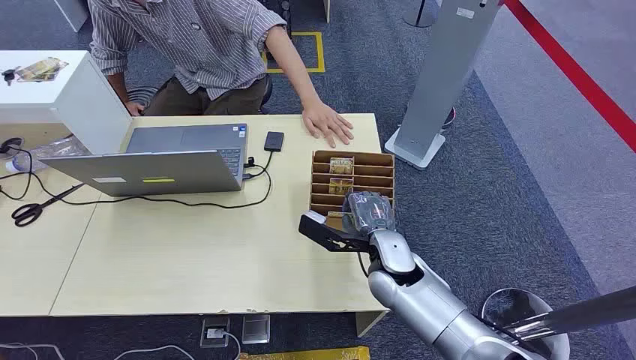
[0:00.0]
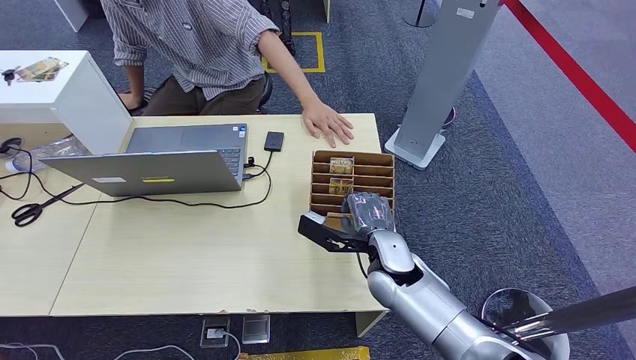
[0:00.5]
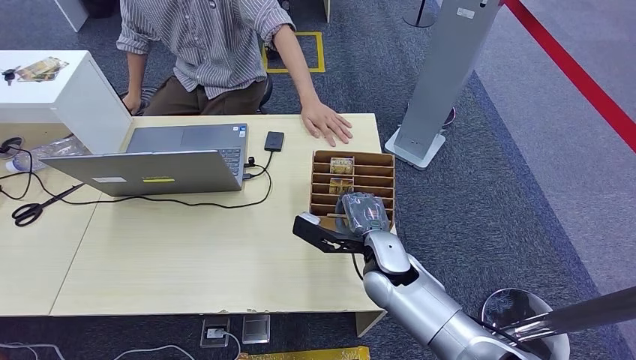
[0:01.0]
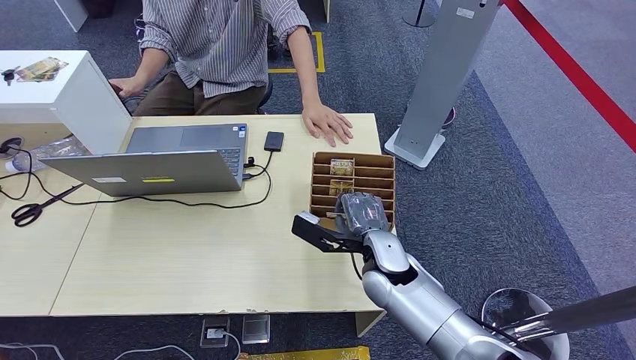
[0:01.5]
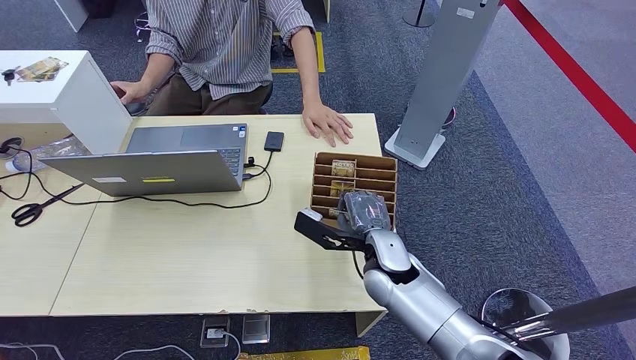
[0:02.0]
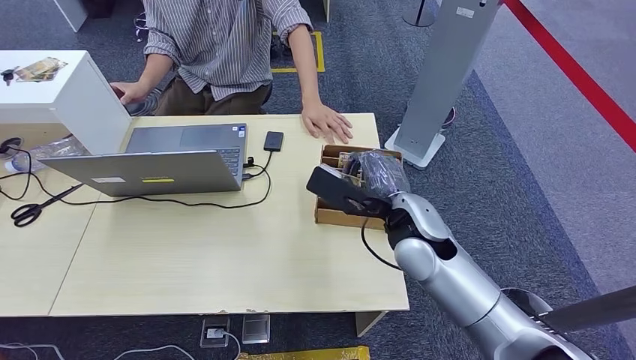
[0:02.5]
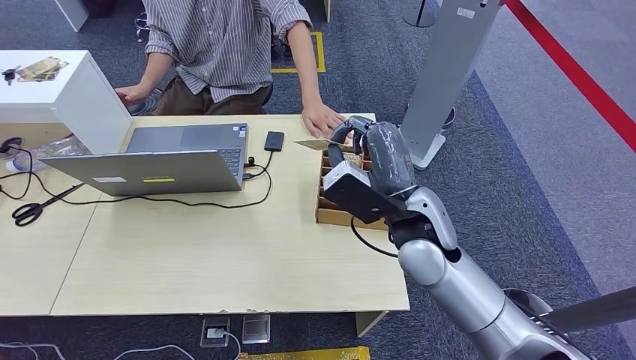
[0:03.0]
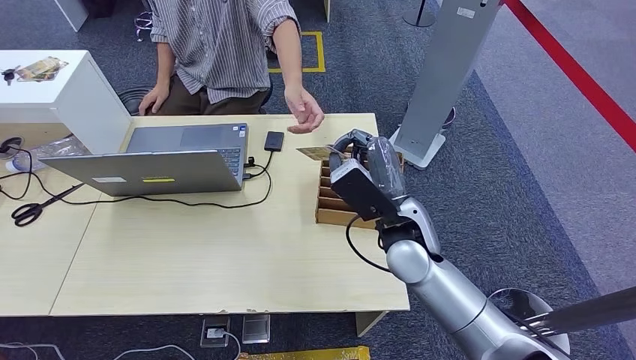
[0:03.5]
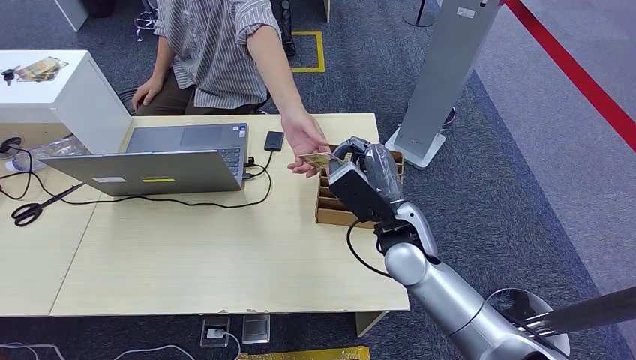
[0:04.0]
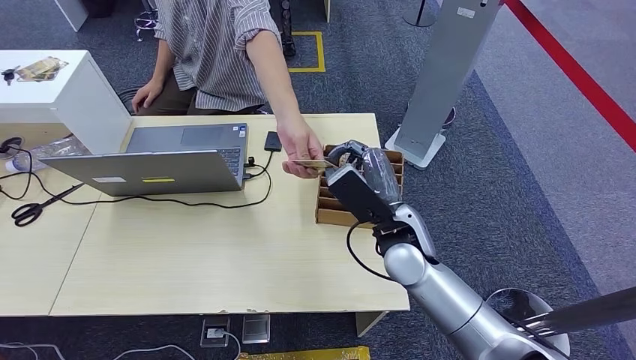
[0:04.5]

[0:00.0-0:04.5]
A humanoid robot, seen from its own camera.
Step, 0:00.0 to 0:02.5: Pick up the key card from the card box.
Step, 0:03.5 to 0:04.5: Hand the key card to the target.
0:02.0 to 0:04.5: The right hand goes some 5 cm upward.

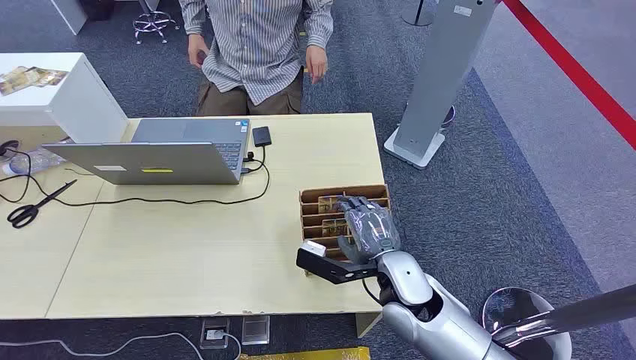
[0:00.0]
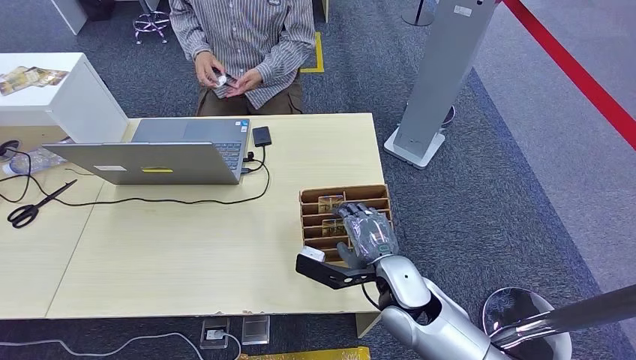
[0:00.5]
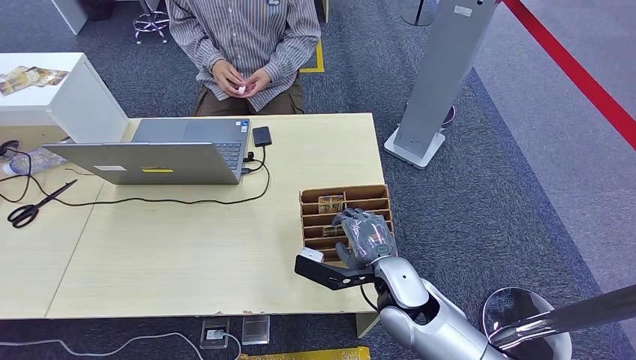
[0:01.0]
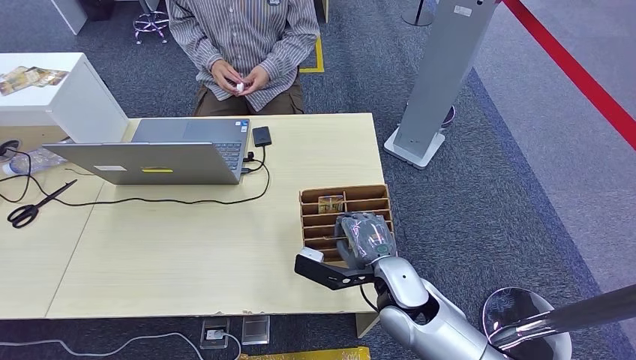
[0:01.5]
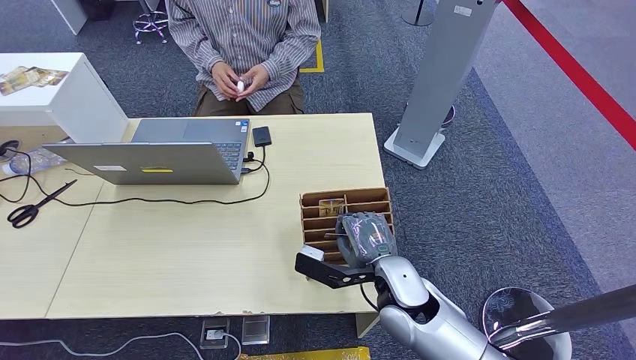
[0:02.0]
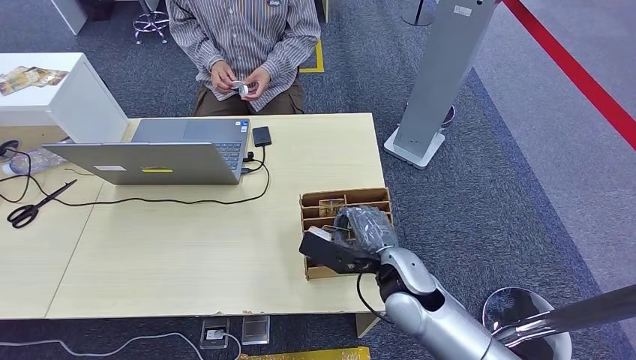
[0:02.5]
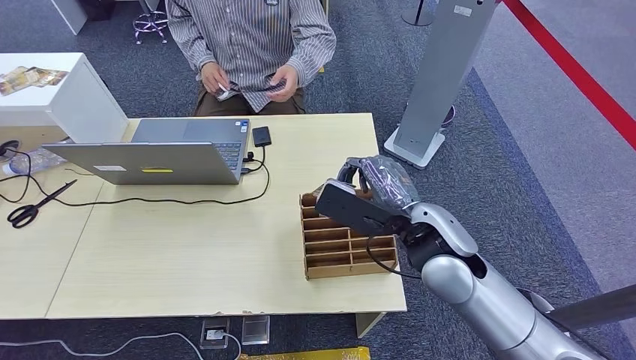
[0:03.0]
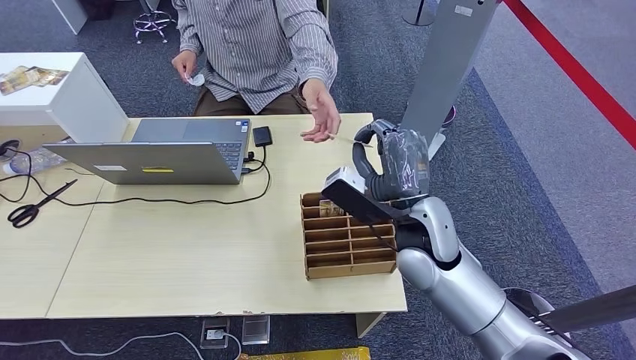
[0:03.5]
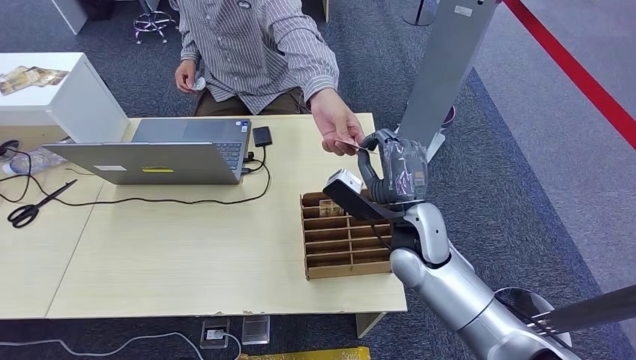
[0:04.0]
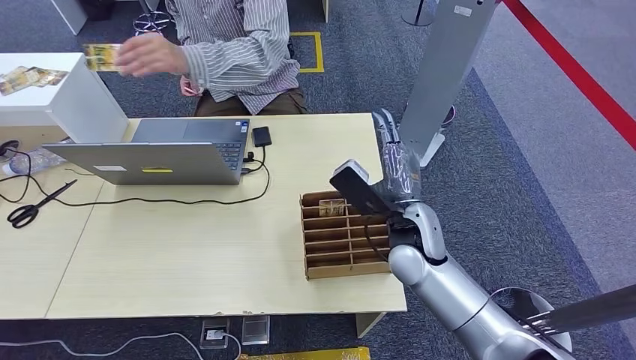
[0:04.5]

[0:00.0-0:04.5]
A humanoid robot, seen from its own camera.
Step, 0:00.0 to 0:02.5: Pick up the key card from the card box.
Step, 0:04.0 to 0:04.5: Hand the key card to the target.
0:02.0 to 0:04.5: The right hand is displaced forward and upward by some 10 cm.
